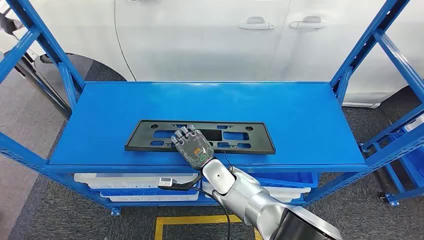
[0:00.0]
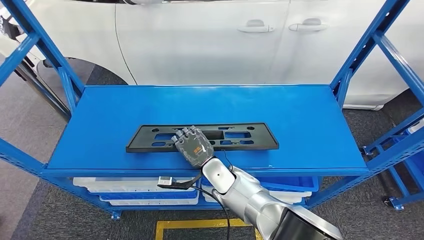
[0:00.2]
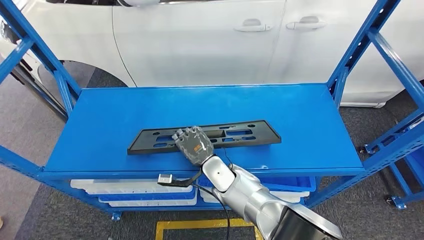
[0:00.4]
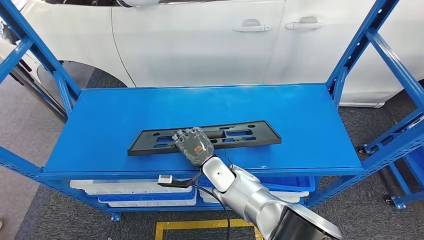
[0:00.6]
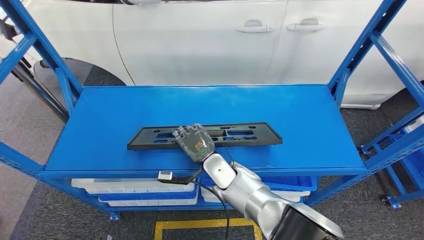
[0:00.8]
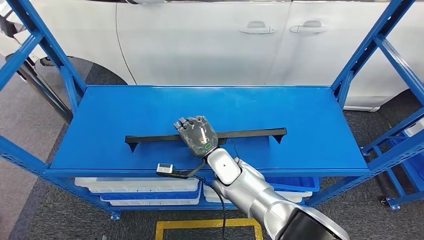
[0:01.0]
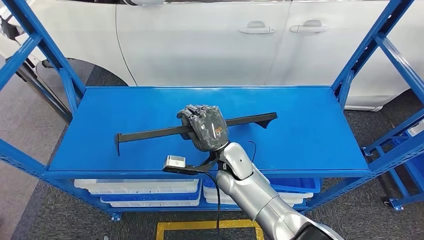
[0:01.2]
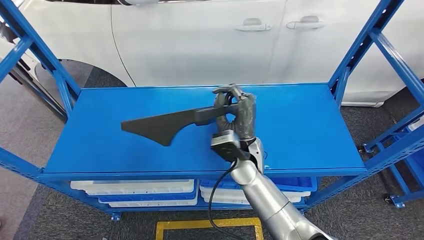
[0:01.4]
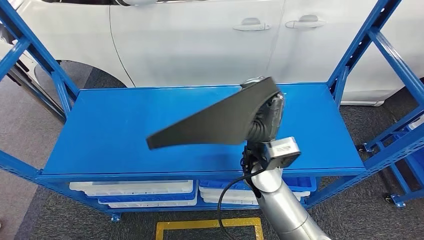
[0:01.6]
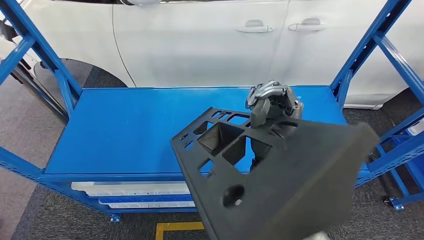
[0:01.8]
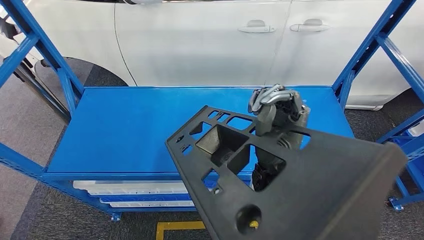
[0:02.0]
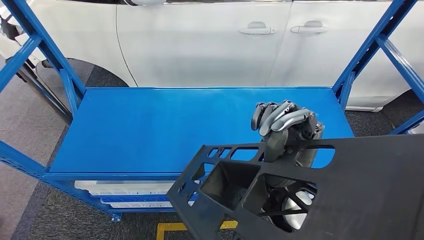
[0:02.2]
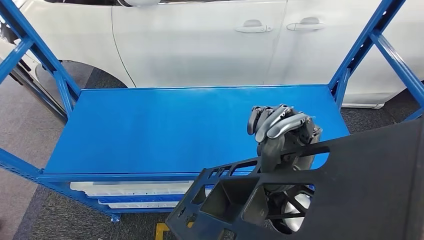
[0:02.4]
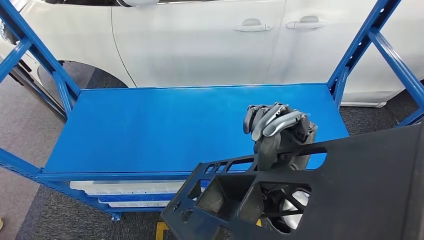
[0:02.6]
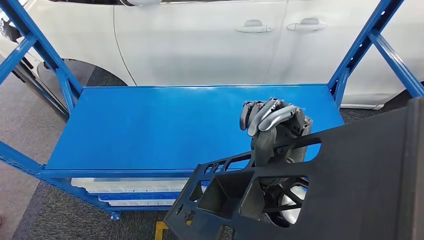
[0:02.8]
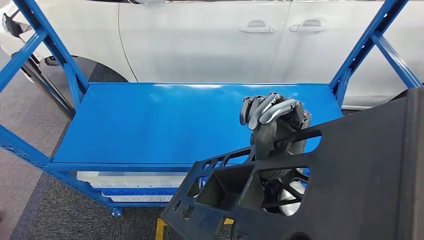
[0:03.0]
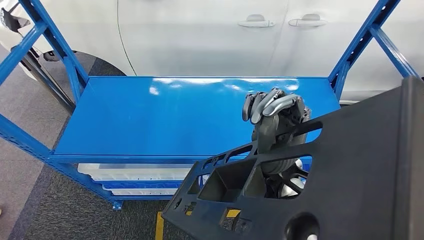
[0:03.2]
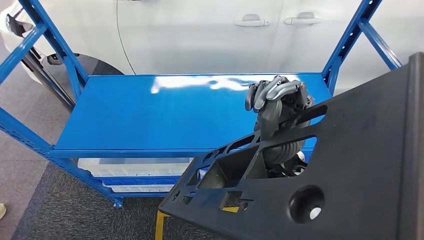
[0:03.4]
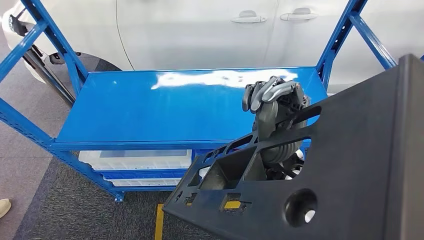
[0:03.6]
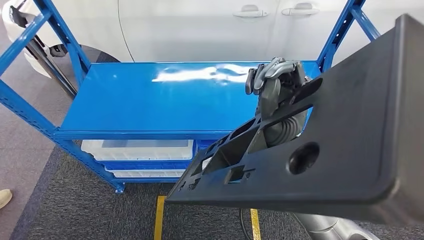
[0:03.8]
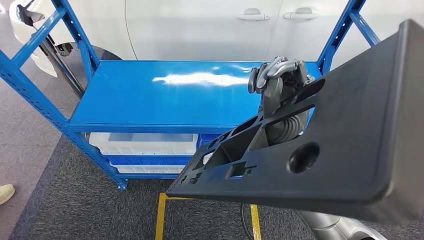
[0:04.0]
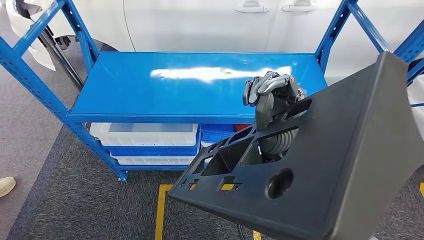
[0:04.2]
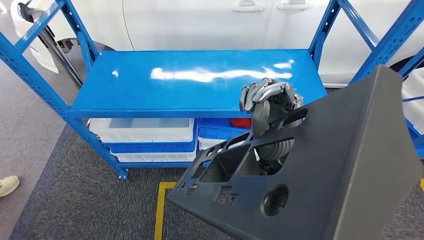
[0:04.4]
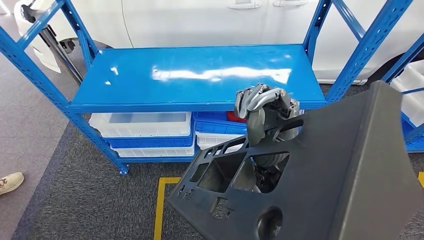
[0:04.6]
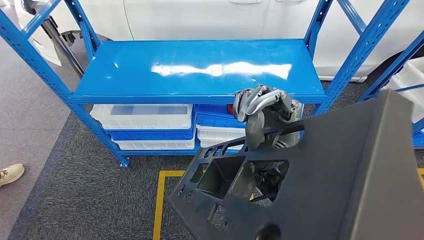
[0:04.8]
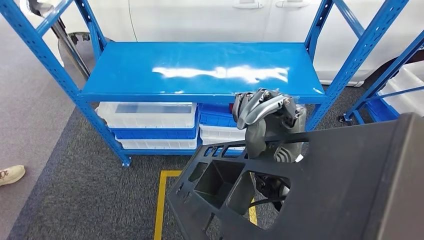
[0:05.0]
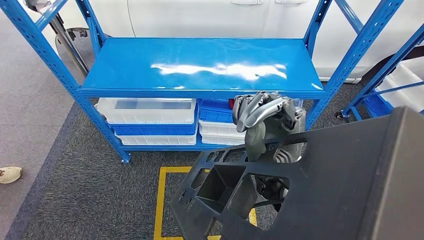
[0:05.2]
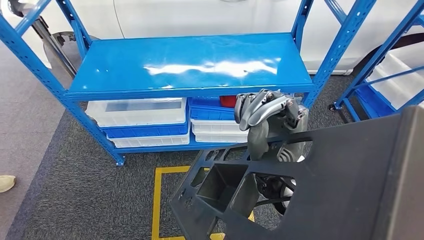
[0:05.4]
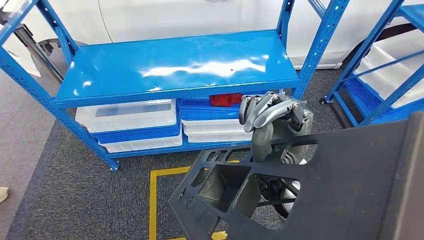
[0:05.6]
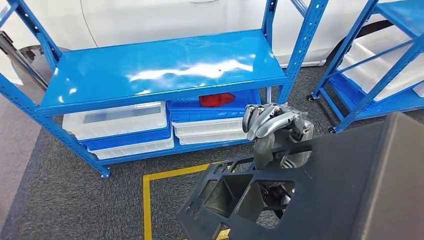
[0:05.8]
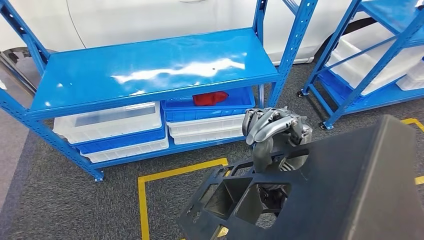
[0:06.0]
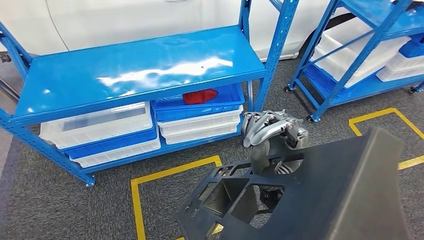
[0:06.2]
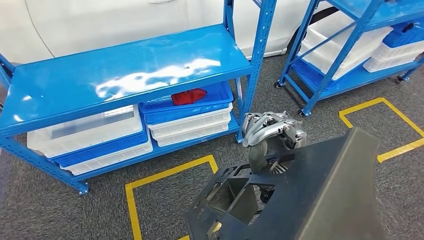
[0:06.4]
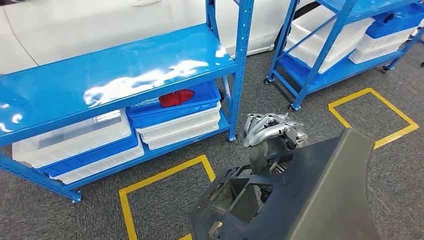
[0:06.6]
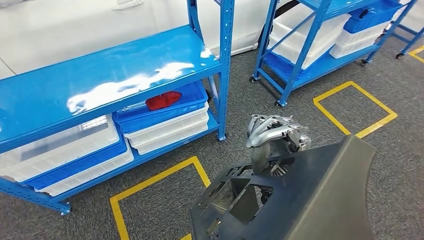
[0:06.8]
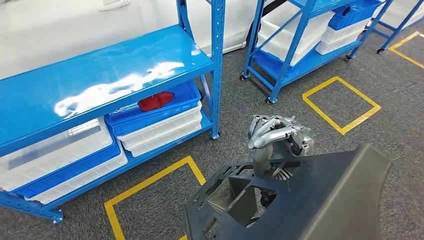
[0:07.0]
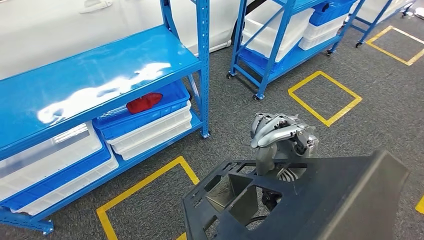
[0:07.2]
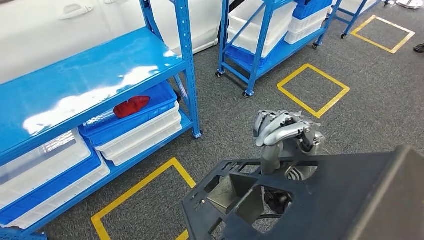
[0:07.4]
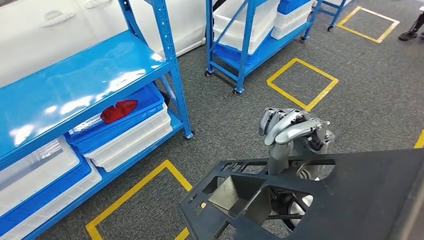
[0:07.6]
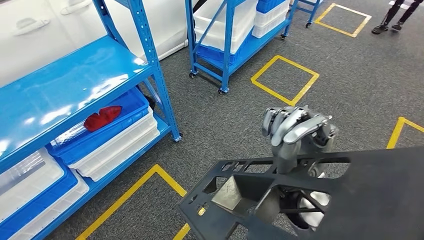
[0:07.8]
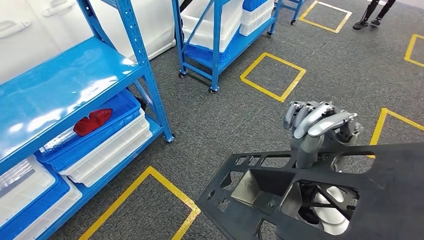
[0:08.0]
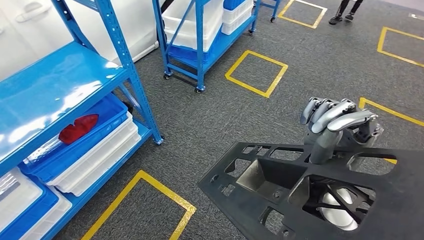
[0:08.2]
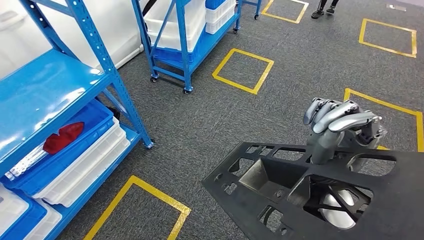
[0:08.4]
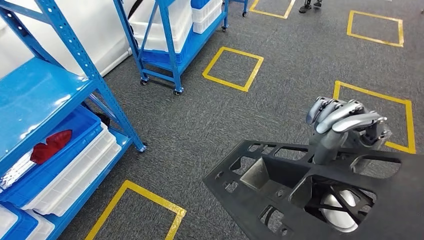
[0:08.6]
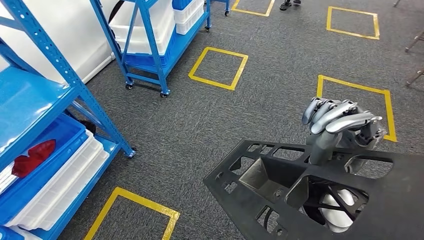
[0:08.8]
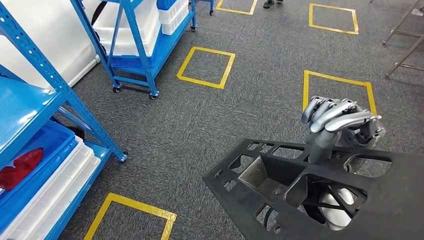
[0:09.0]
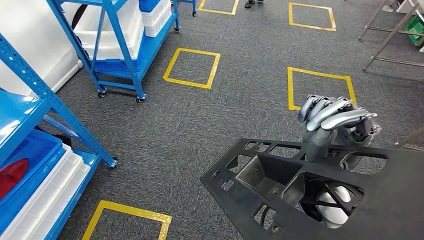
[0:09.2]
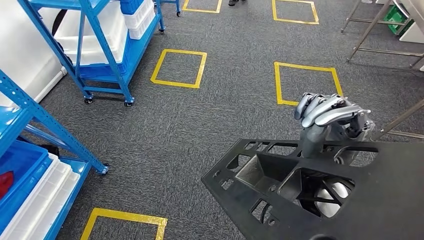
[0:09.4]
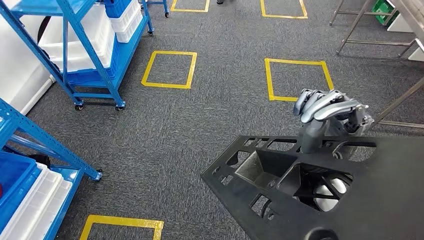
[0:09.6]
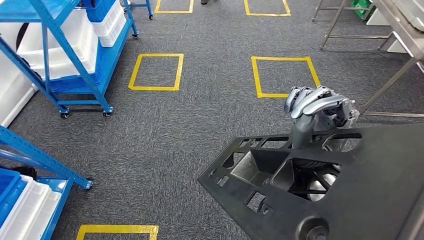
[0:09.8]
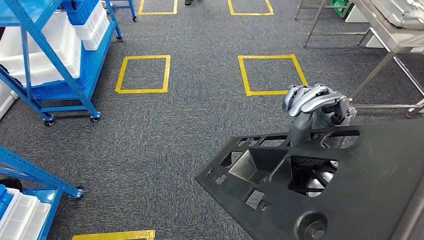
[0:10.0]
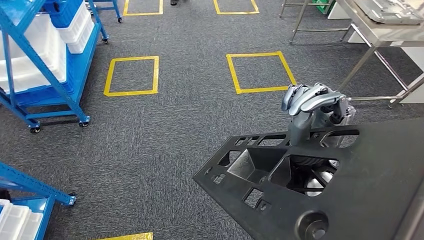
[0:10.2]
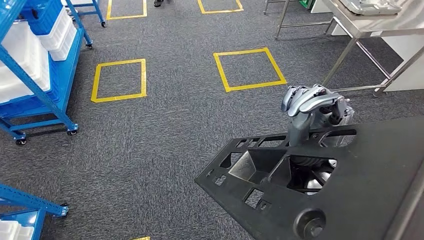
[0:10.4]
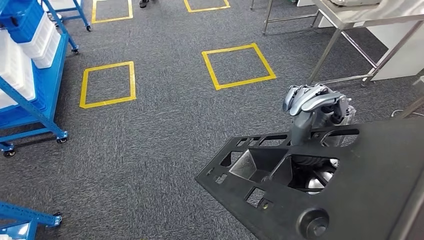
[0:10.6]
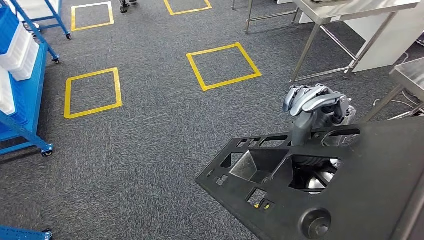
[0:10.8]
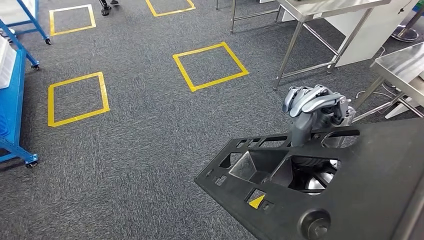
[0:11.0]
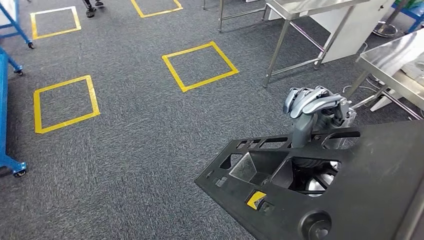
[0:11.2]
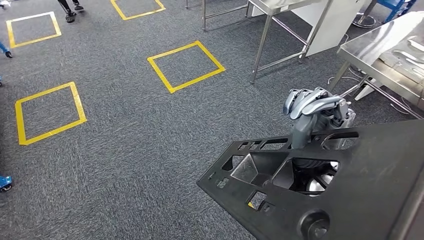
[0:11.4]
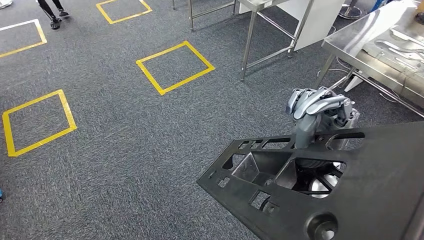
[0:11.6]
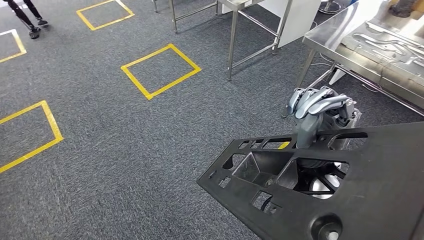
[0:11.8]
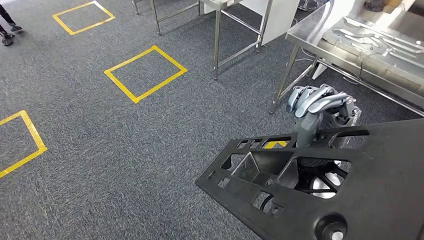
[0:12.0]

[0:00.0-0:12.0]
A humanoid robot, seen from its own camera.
Step, 0:00.0 to 0:02.6: Pick up the large material from the shelf.

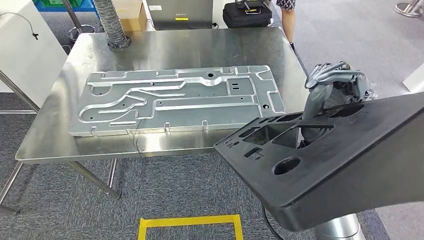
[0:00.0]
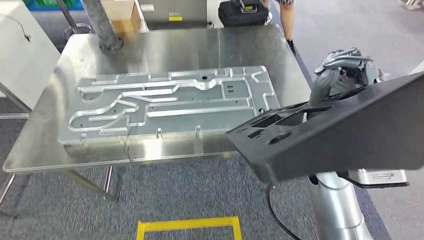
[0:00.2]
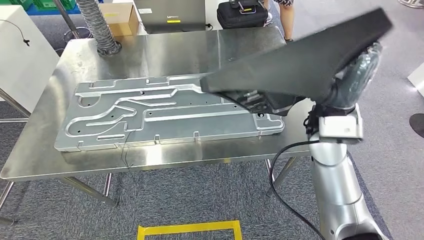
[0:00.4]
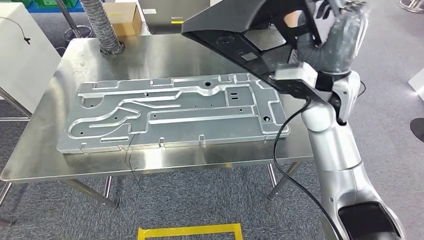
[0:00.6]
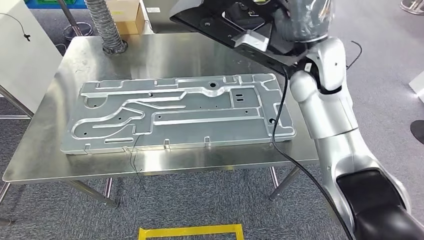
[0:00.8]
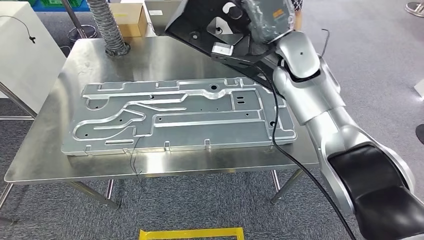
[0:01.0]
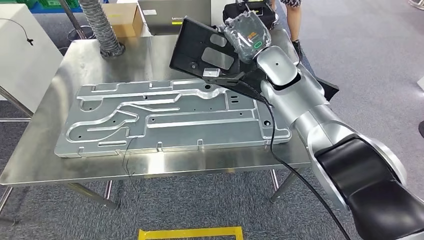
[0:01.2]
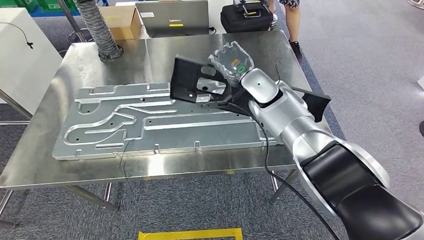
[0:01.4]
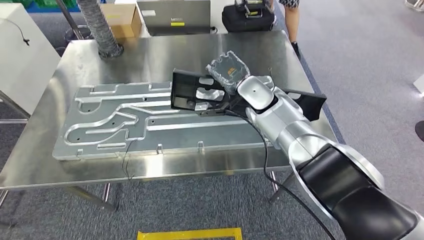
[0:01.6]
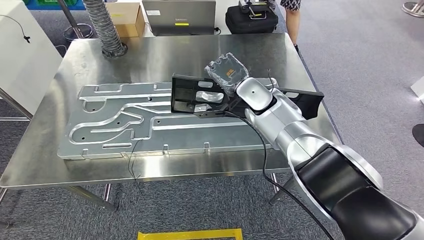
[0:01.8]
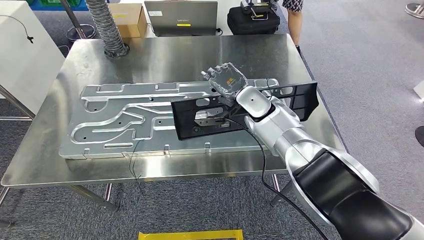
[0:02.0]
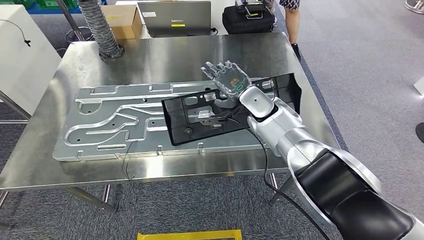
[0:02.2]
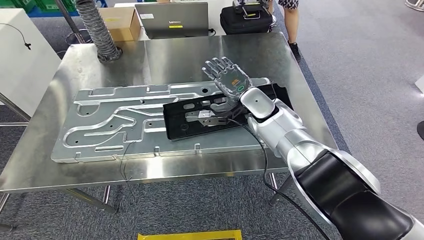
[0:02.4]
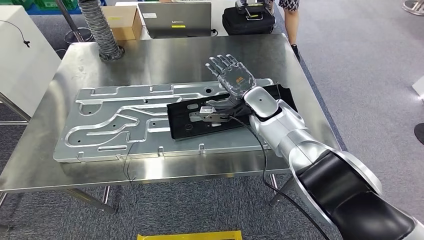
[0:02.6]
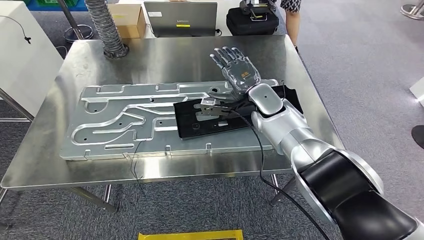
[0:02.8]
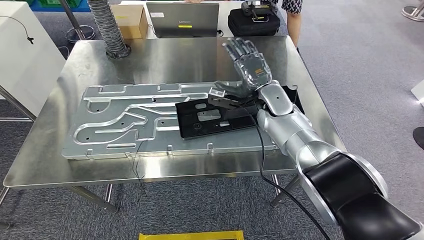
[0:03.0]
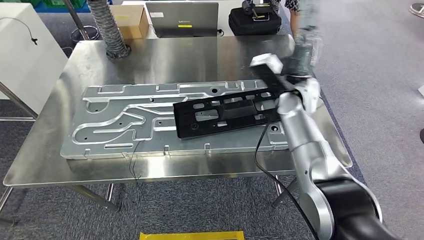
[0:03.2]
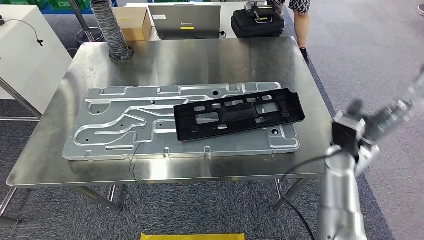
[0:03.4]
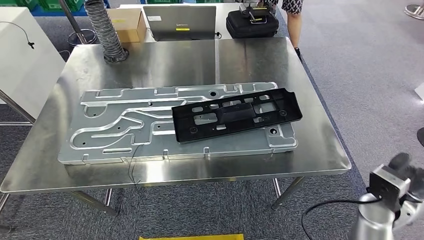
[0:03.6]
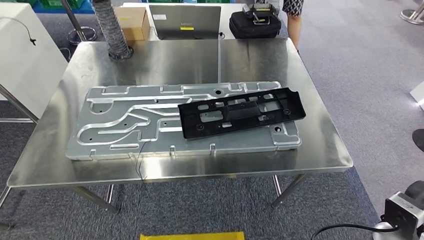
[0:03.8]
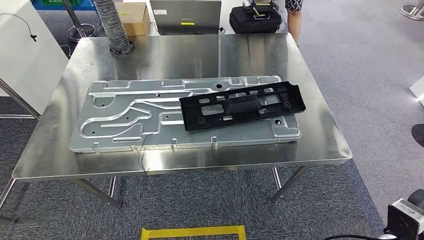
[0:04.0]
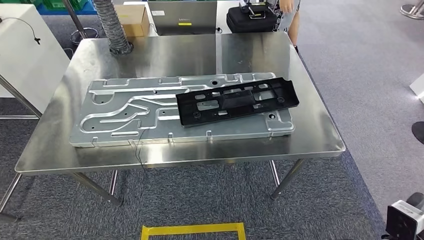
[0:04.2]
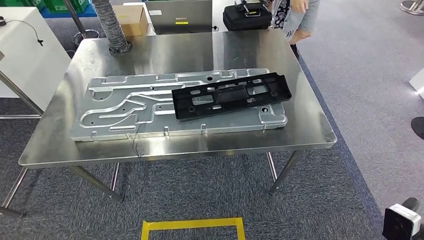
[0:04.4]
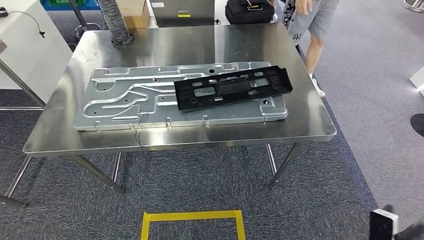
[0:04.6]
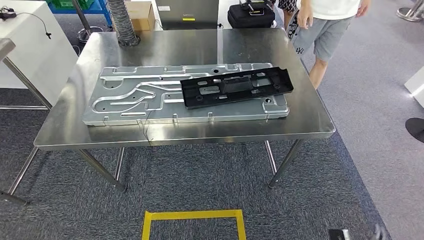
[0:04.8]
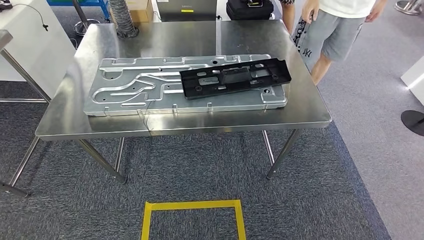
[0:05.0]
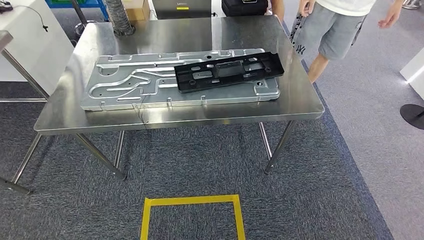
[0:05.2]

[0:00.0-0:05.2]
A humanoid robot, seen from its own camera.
Step, 0:00.2 to 0:04.0: Insert the large material into the corresponding slot on the workbench.
